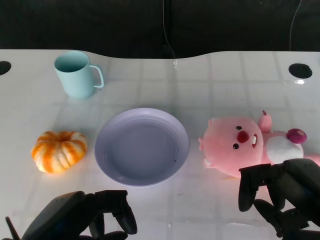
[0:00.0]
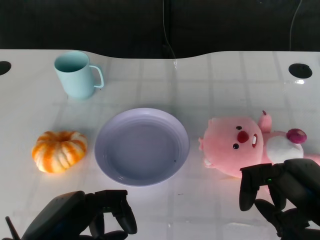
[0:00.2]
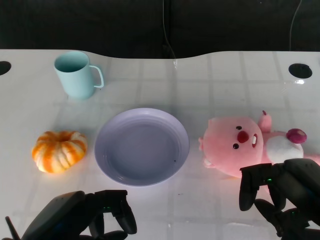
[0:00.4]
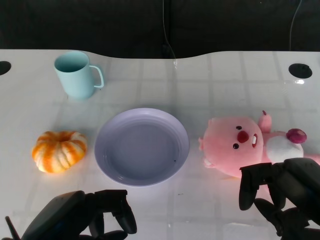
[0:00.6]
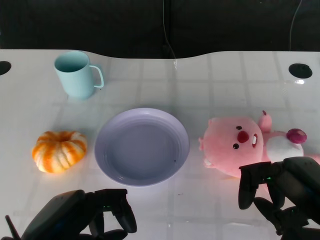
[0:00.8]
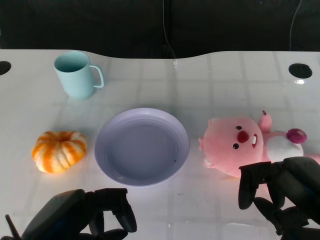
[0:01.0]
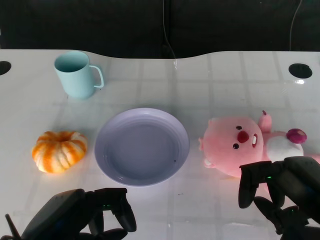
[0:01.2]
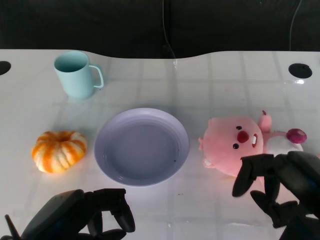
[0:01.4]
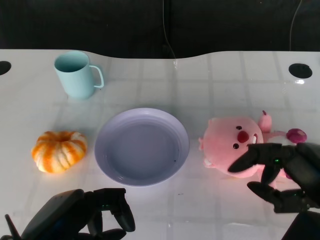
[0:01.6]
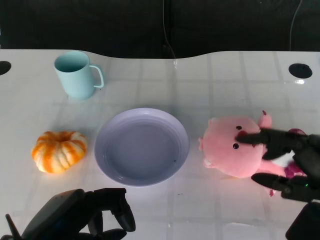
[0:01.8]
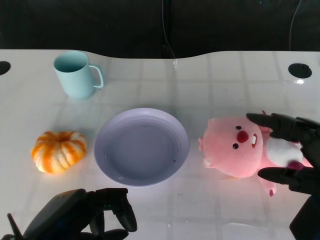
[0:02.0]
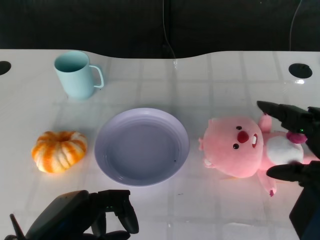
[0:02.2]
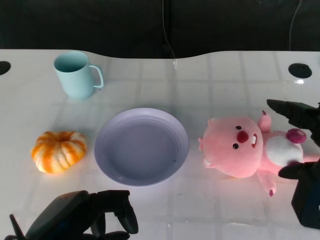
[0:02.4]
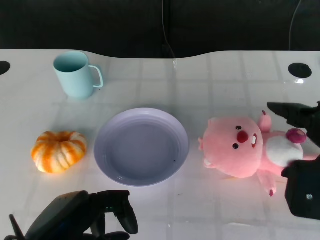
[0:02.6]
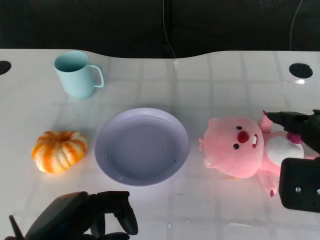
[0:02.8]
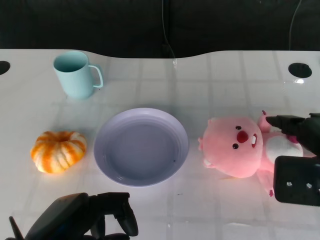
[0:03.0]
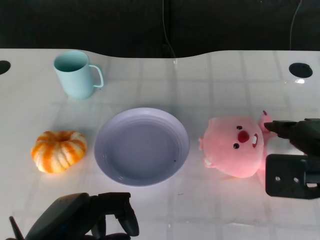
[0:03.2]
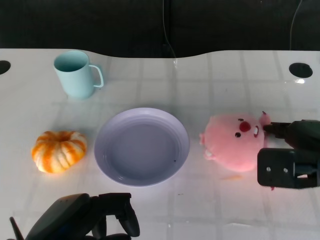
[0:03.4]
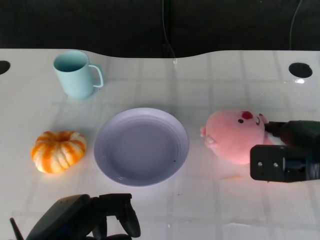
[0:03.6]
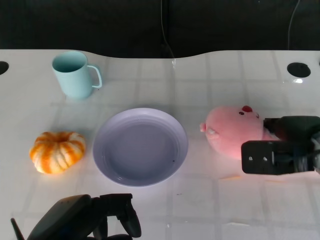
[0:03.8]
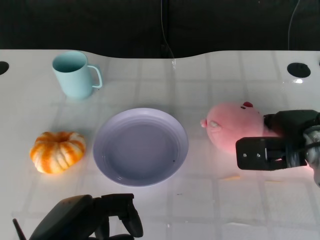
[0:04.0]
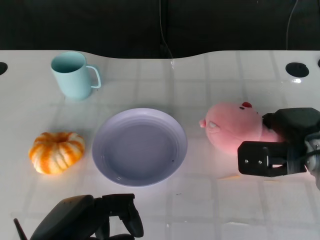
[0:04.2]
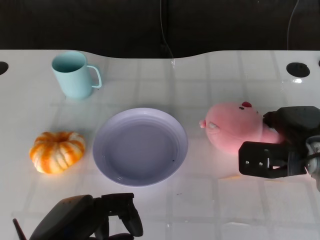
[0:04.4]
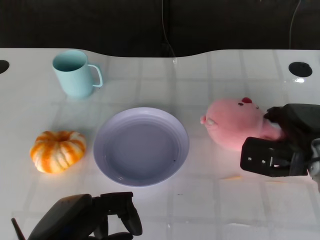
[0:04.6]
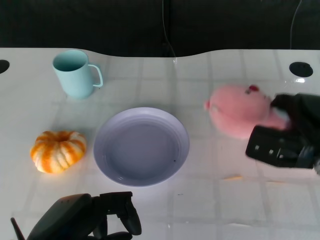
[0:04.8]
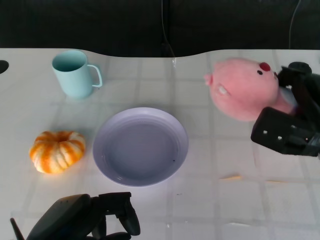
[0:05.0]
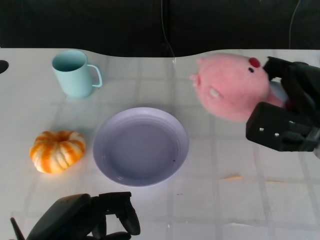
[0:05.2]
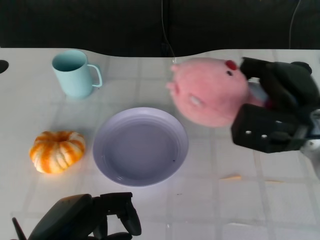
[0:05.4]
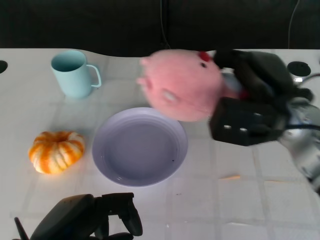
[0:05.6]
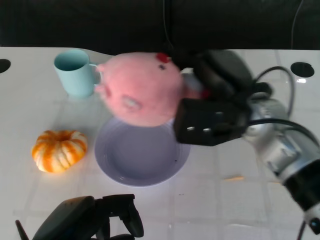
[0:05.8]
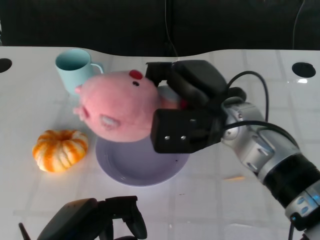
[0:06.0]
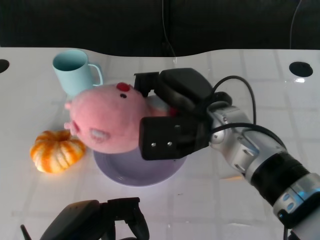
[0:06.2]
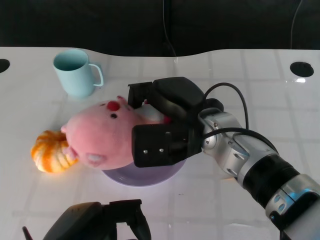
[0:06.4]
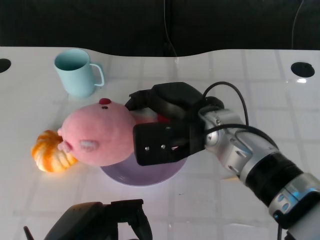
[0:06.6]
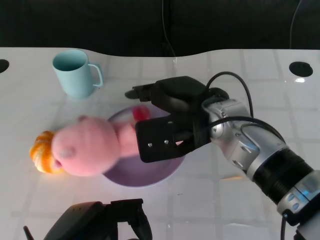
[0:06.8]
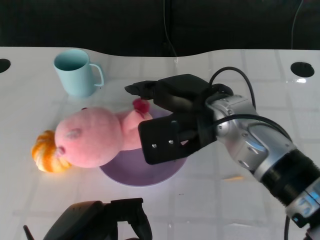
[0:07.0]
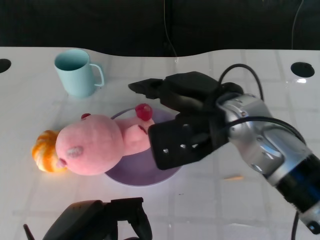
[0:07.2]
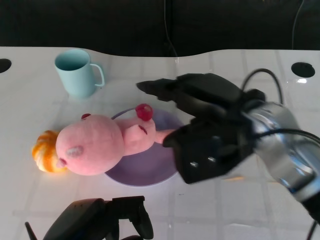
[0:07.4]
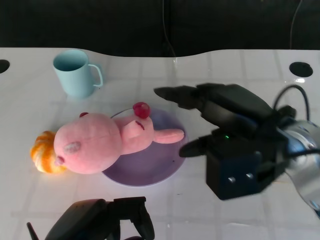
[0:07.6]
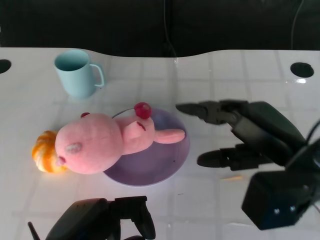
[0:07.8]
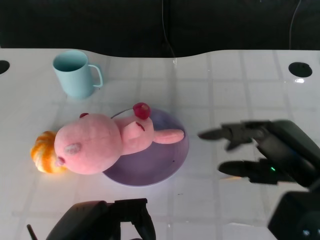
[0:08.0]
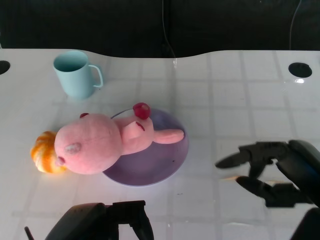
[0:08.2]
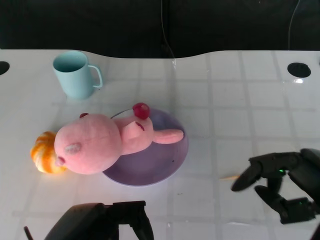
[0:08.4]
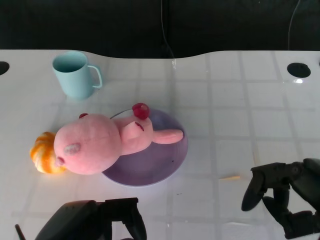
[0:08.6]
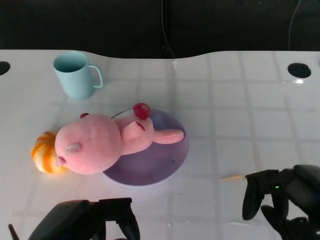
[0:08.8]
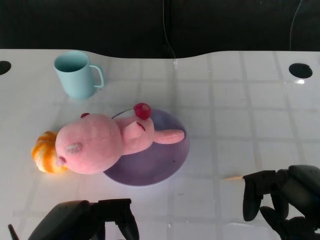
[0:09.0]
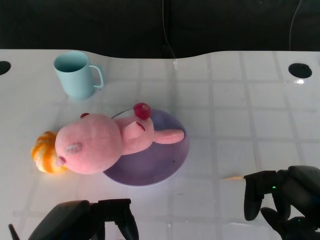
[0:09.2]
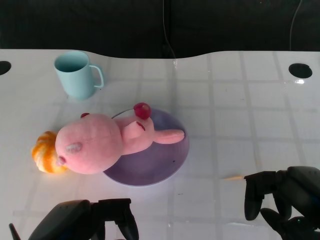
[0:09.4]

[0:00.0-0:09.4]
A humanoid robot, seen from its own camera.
Task of the whole recording: Pick up the doll on the other side of the plate and place it into the plate.
Step, 0:01.2 to 0:04.8: Grasp the pink doll with the right gripper.
Step, 0:05.0 to 0:07.0: Place the pink doll into the plate with the right gripper.
0:01.6 to 0:03.2: The right hand goes roughly 10 cm forward.
0:03.2 to 0:04.8: The right hand shifts approximately 10 cm forward and downward.
0:04.8 to 0:06.2: The right hand travels to the left by some 15 cm.
0:06.2 to 0:07.8: The right hand moves to the right and backward, approximately 15 cm.
0:07.8 to 0:09.4: The right hand goes some 10 cm backward and to the right.

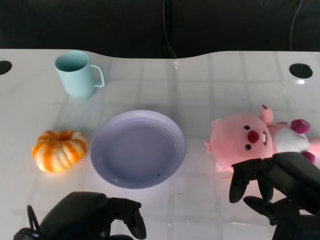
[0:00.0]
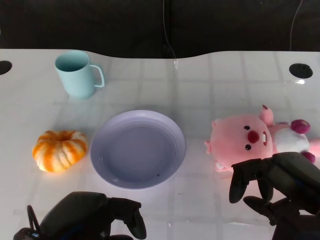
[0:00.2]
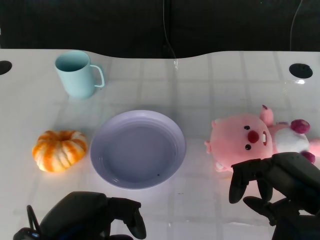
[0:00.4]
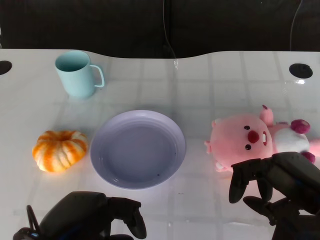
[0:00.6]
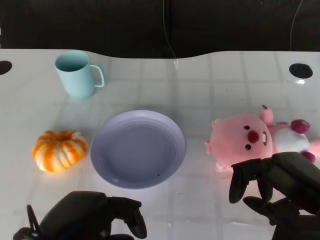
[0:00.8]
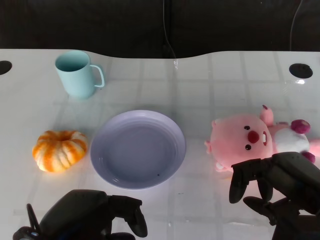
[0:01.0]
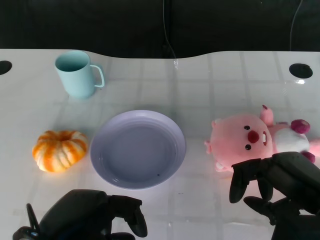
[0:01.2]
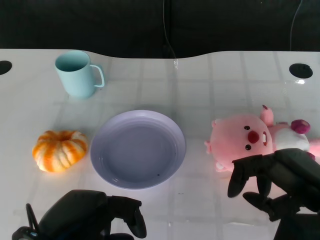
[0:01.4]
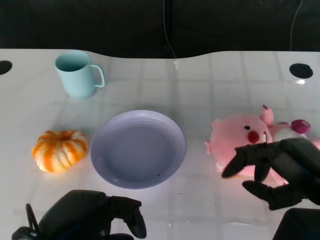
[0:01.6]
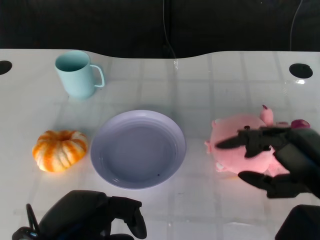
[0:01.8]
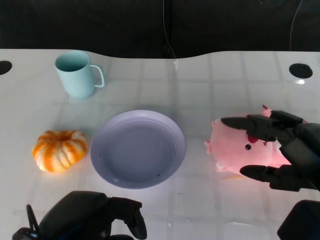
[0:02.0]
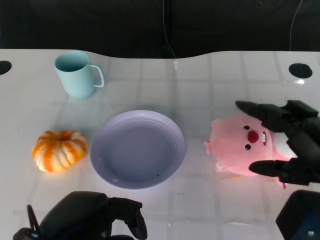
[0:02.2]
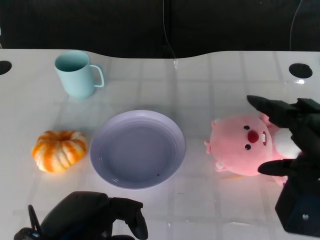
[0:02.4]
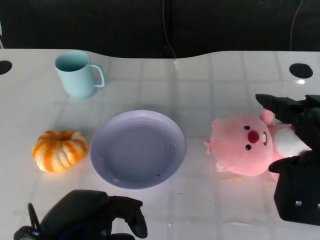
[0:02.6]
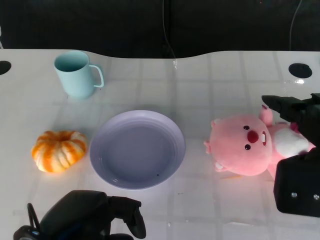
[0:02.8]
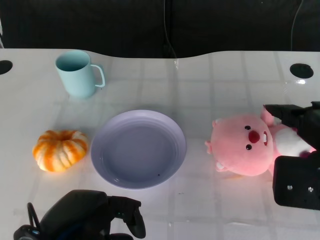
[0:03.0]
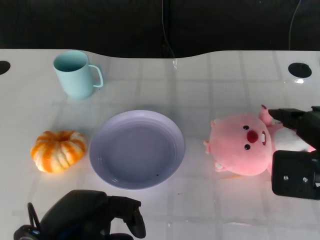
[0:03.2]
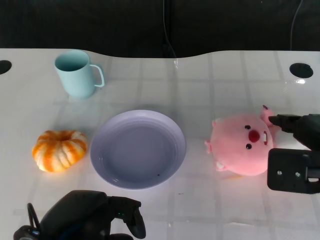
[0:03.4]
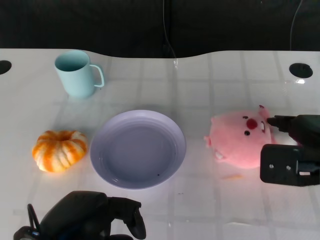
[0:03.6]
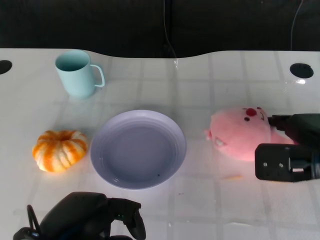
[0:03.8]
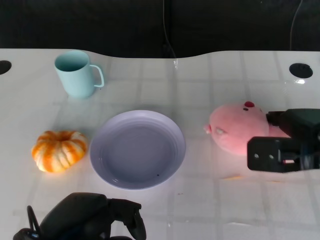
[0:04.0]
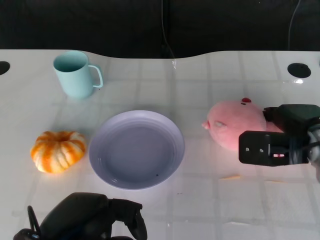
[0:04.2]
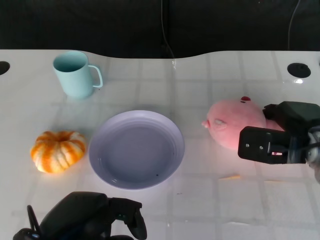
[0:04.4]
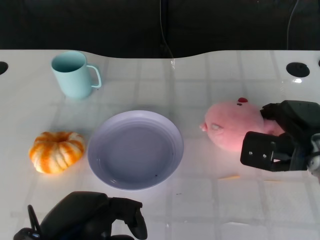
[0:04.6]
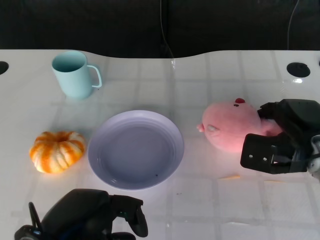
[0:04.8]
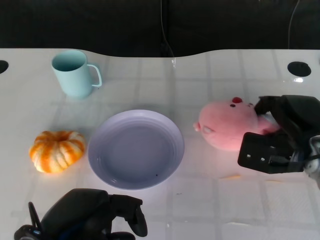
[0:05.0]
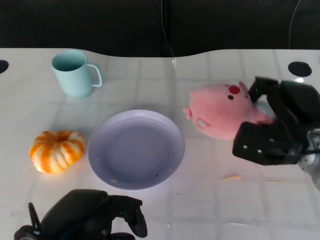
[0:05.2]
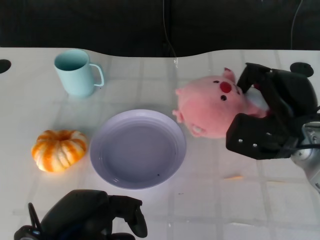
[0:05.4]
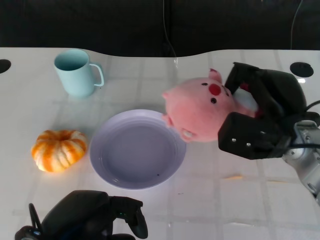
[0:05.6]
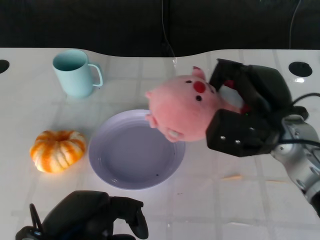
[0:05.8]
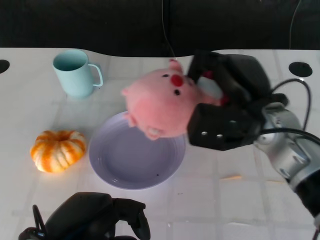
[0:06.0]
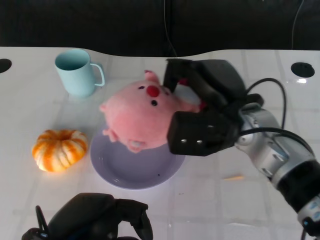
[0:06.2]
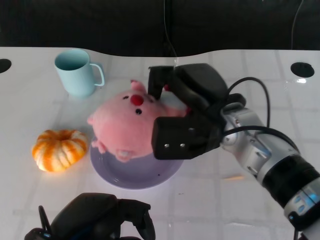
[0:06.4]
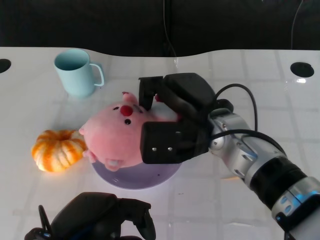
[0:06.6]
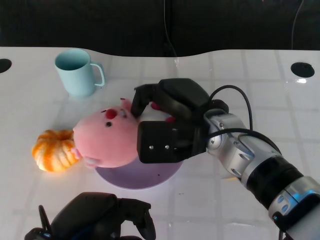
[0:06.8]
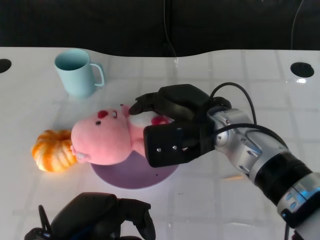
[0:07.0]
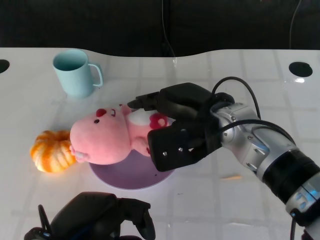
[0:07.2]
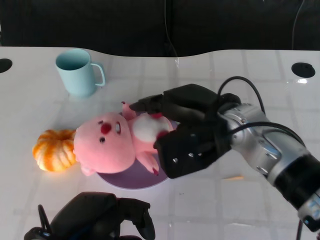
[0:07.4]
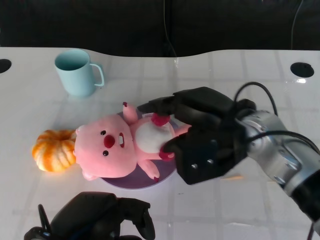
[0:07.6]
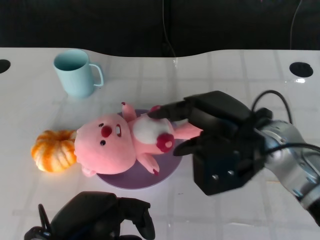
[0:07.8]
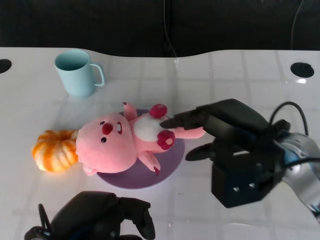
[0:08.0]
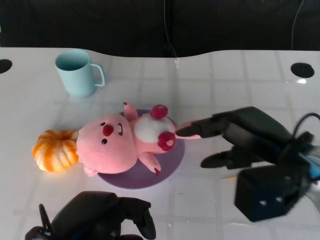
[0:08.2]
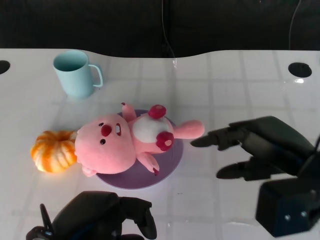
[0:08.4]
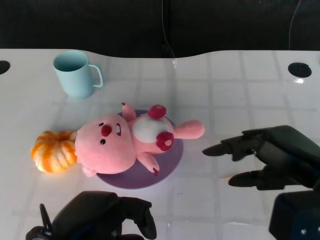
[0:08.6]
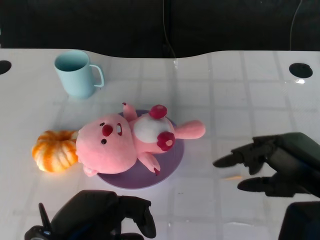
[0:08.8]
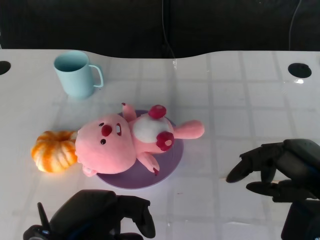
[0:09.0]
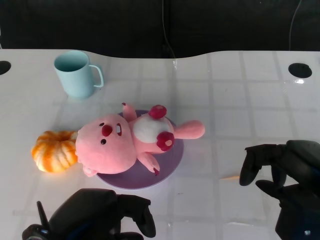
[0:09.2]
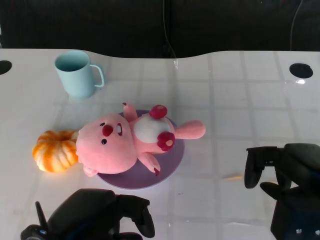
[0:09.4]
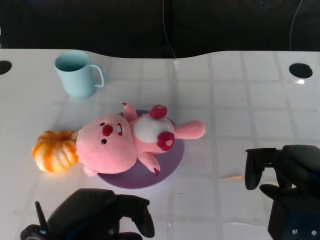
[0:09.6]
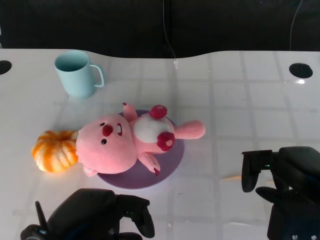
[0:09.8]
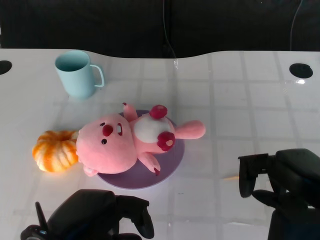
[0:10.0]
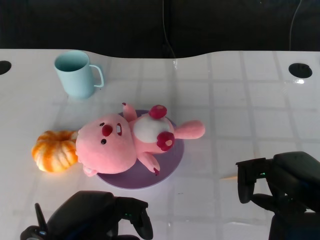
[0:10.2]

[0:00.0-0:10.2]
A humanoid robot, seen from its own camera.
Task of the whole recording: Pick up the doll on the other side of the plate and place it into the plate.
Step, 0:01.4 to 0:05.6: Grasp the pink doll with the right gripper.
Step, 0:05.8 to 0:08.2: Place the pink doll into the plate with the right gripper.
0:01.4 to 0:03.0: The right hand travels upward by roughly 5 cm.
0:03.0 to 0:04.4: The right hand shifts roughly 15 cm forward and downward.
0:04.4 to 0:05.8: The right hand goes about 5 cm to the left.
0:05.8 to 0:07.2: The right hand travels to the left by about 10 cm.
0:07.2 to 0:08.8: The right hand heads to the right and backward, covering approximately 20 cm.
0:08.8 to 0:10.2: There are only small adjustments of the hands.

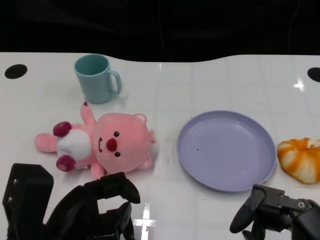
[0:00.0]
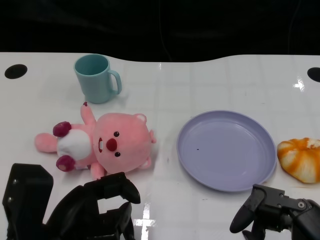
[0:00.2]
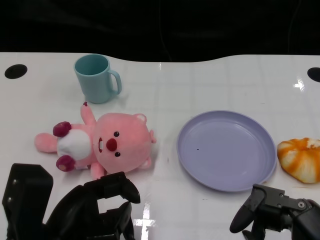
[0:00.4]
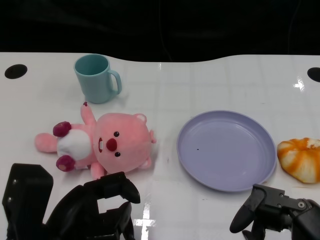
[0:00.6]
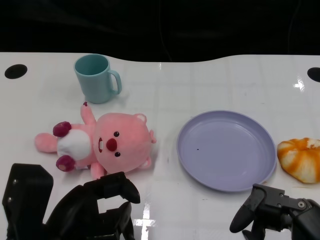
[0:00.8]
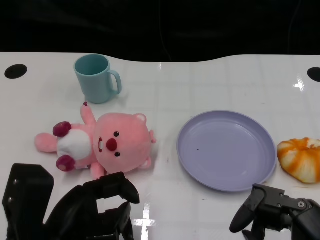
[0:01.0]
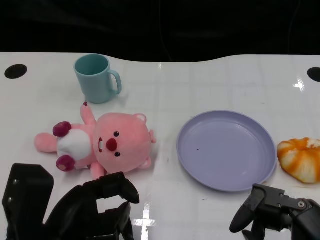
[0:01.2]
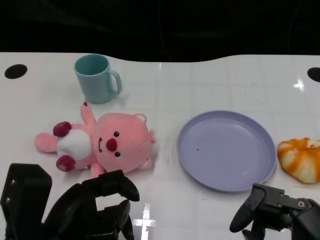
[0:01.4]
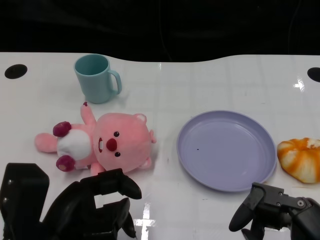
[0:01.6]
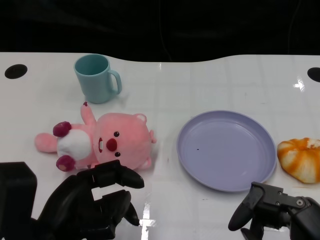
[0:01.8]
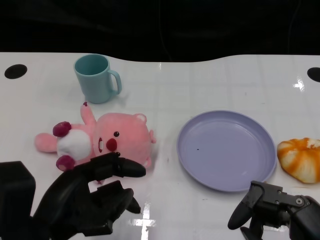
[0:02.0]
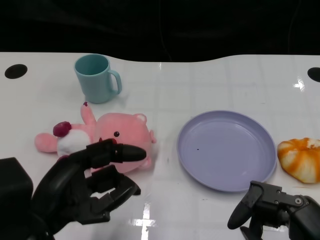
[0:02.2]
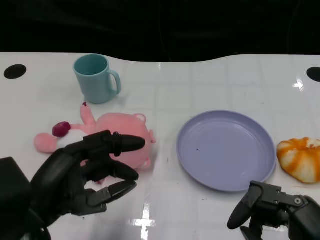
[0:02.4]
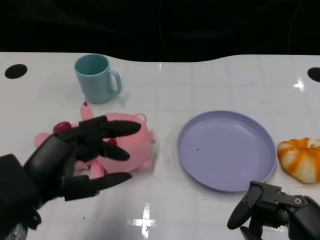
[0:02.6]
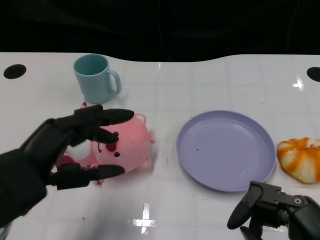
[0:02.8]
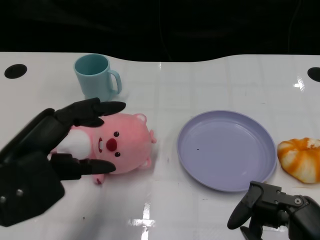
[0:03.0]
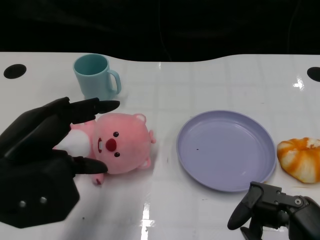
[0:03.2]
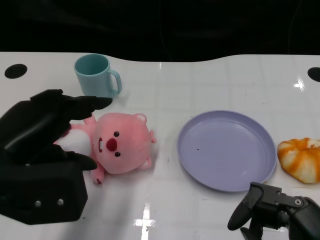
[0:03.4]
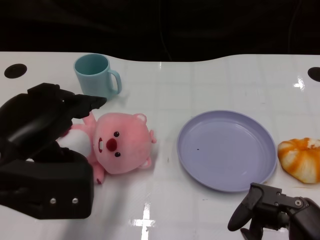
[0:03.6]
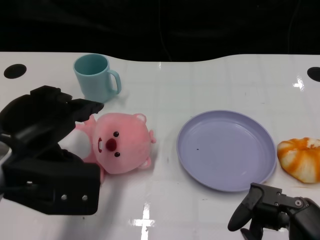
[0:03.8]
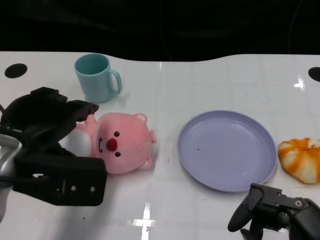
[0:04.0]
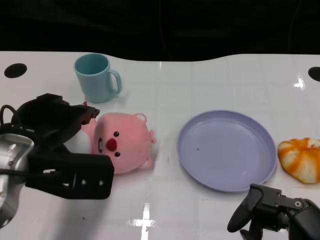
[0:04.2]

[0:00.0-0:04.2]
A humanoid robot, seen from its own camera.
Task of the whole recording: Pick up the doll on one side of the plate and place it into the plate.
0:01.4 to 0:02.8: The left hand travels upward by some 5 cm.
0:02.8 to 0:04.2: The left hand travels forward by about 5 cm.
